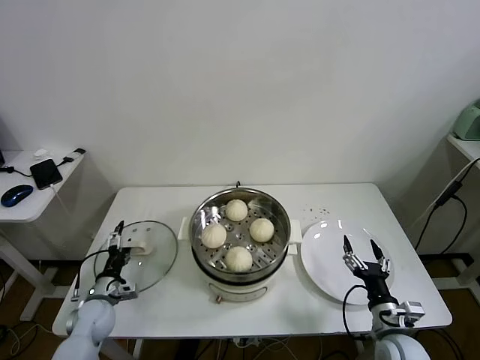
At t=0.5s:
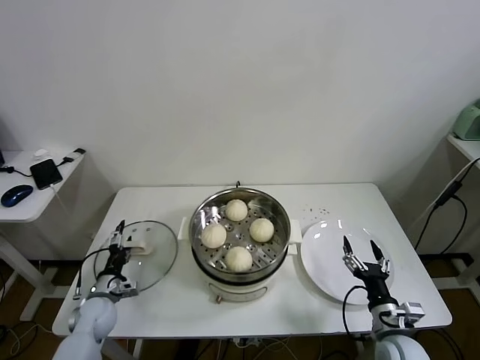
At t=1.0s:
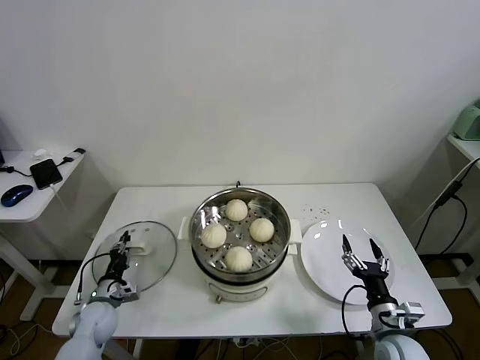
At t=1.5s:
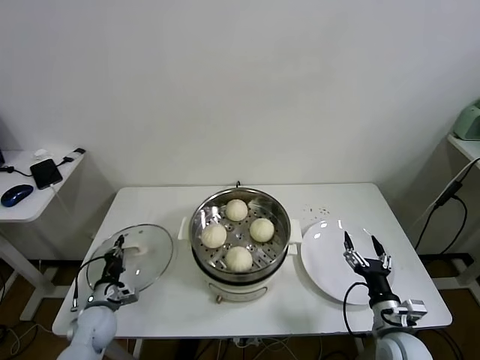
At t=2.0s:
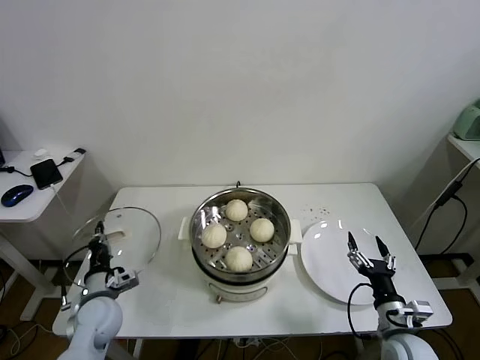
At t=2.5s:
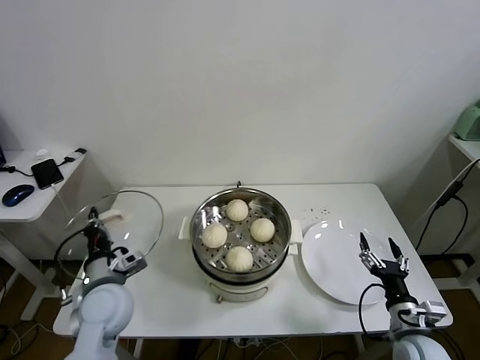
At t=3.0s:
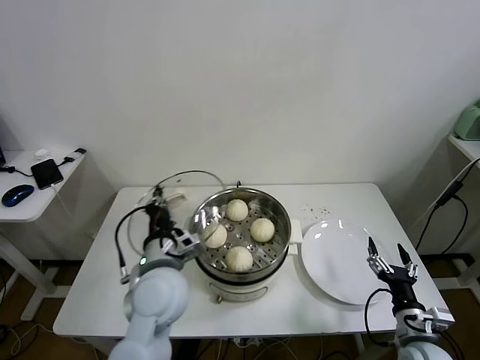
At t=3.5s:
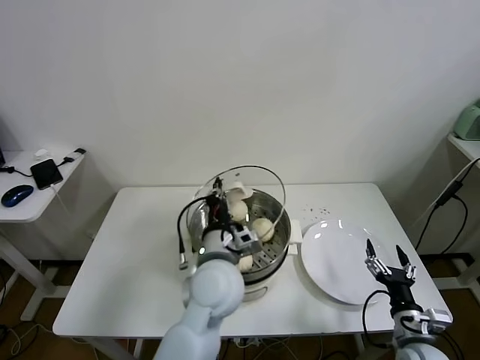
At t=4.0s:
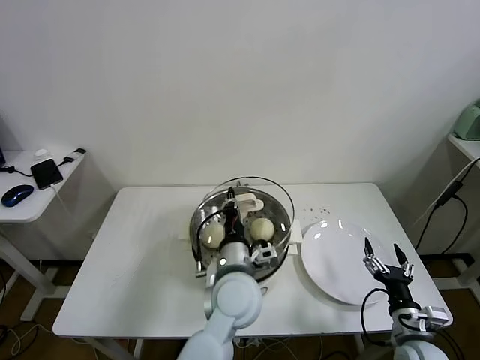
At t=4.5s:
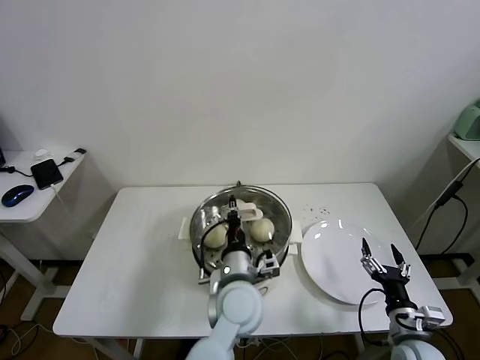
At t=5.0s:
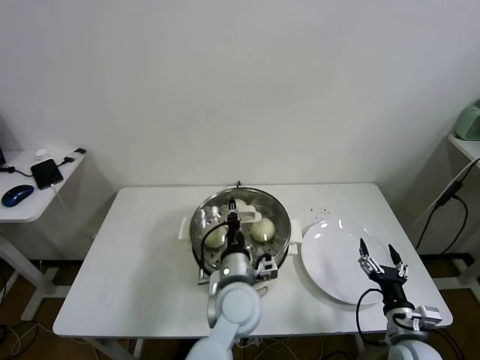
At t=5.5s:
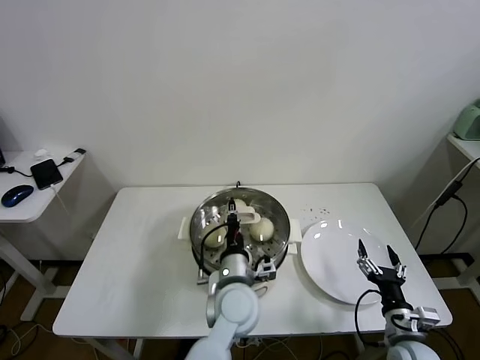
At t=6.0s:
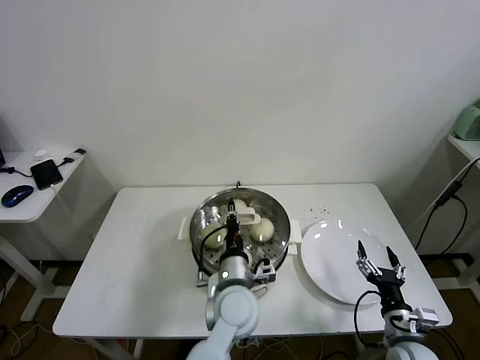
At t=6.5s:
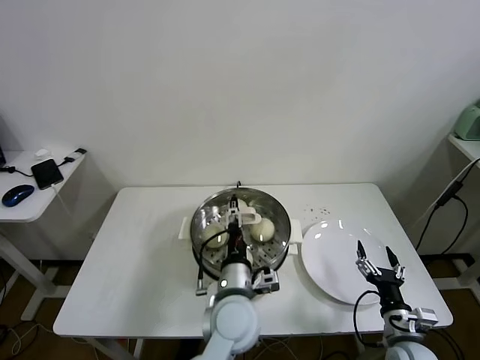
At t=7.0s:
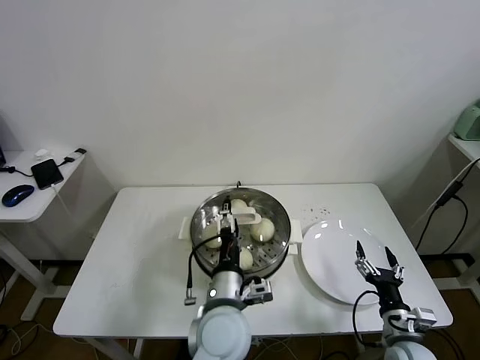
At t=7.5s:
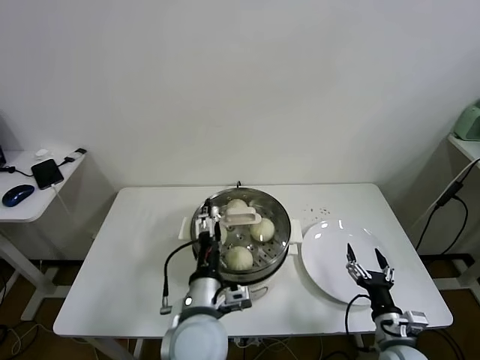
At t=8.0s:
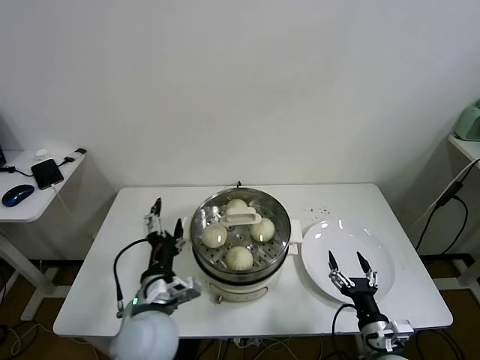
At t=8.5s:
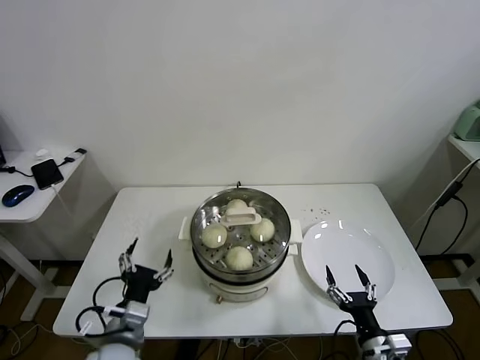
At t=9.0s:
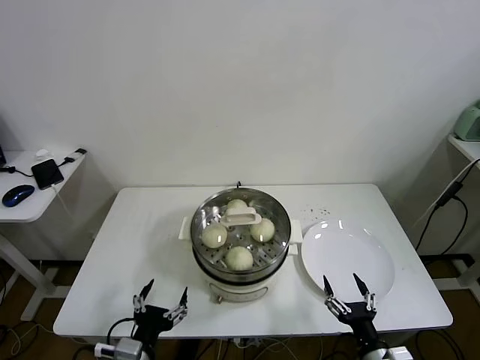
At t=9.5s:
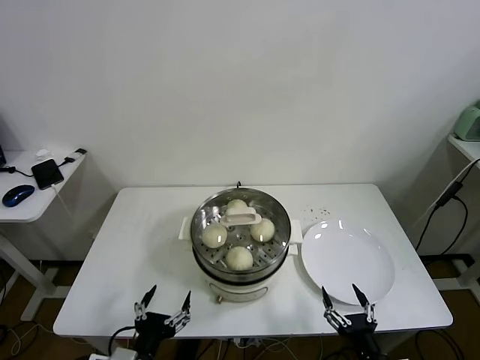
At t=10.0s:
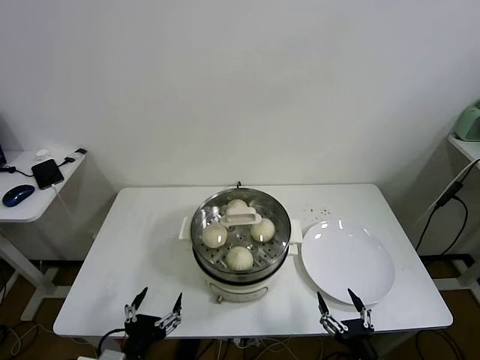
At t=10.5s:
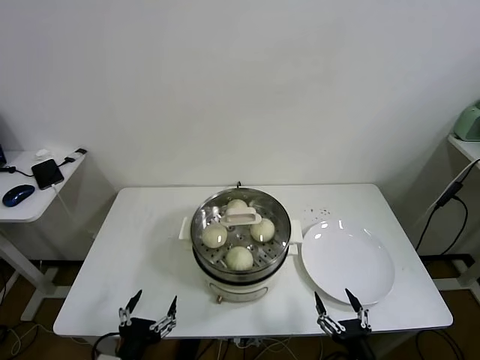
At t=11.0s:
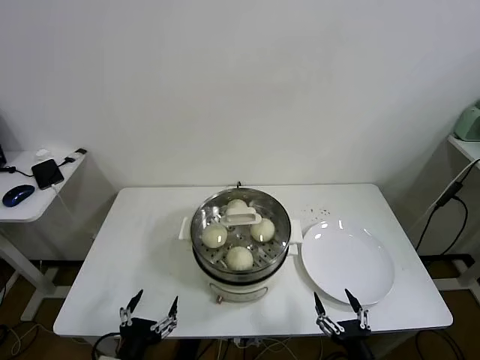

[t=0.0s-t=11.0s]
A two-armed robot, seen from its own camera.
Task of the whole recording: take steamed baozi put them in steamer.
Step, t=1.5s to t=6.0s: Place the pot lid on the steamer with left gripper.
t=0.0s to t=2.0s: The left gripper shifts roughly 5 cm upward, and closes its fingers.
t=2.0s to t=3.5s: The left gripper shifts some 35 cm to the right and upward.
t=3.5s to t=5.5s: The left gripper travels downward by approximately 10 cm.
t=5.5s to t=7.5s: The left gripper shifts some 10 cm backward and to the left, and opens up.
t=7.5s to t=9.0s: The left gripper goes about 20 cm to the left, backward and downward. The right gripper goes about 5 cm backward.
t=9.0s to t=11.0s: The right gripper moves approximately 5 cm.
